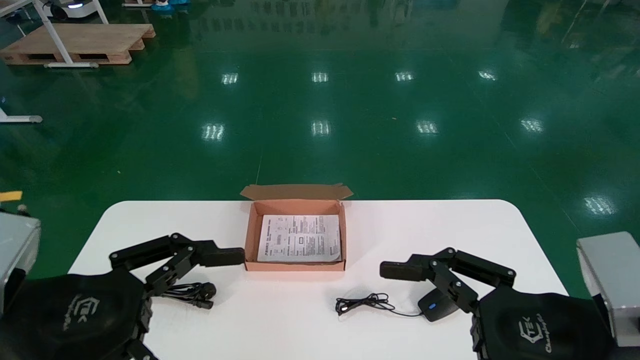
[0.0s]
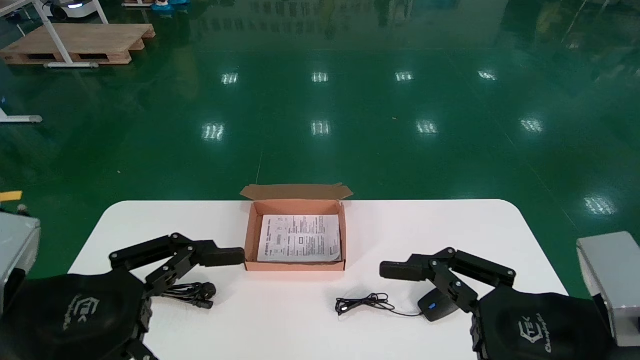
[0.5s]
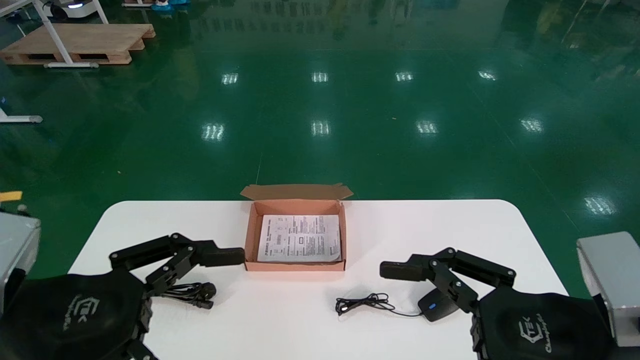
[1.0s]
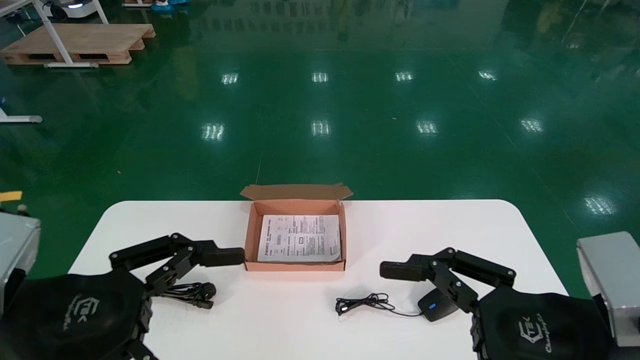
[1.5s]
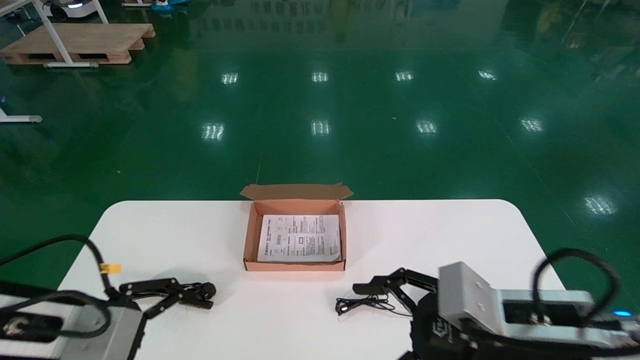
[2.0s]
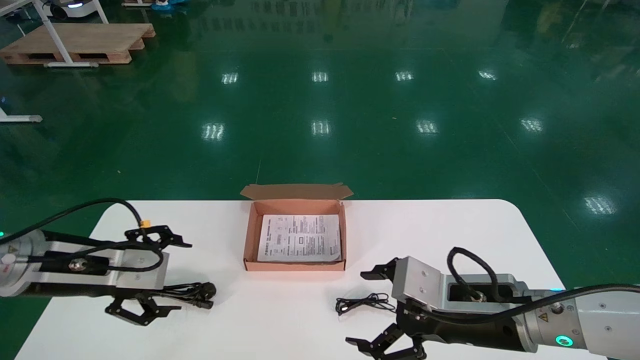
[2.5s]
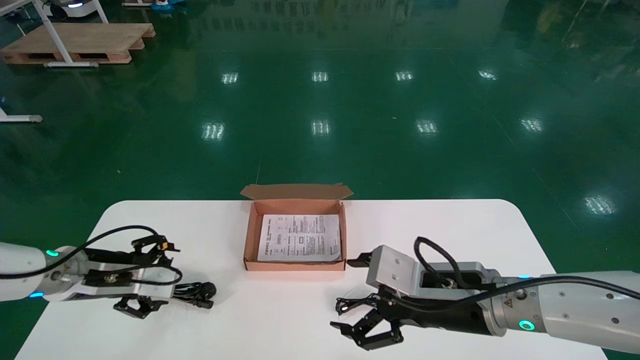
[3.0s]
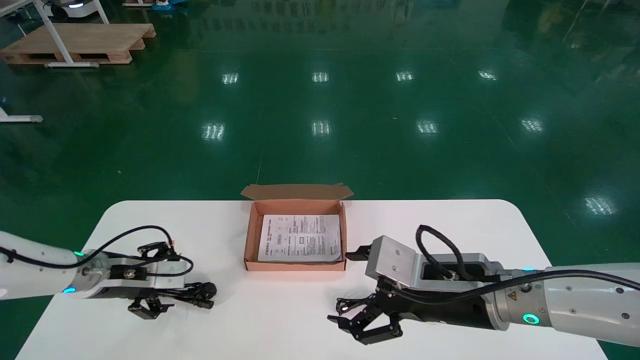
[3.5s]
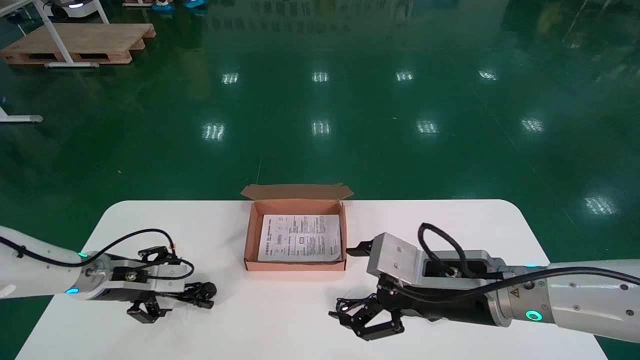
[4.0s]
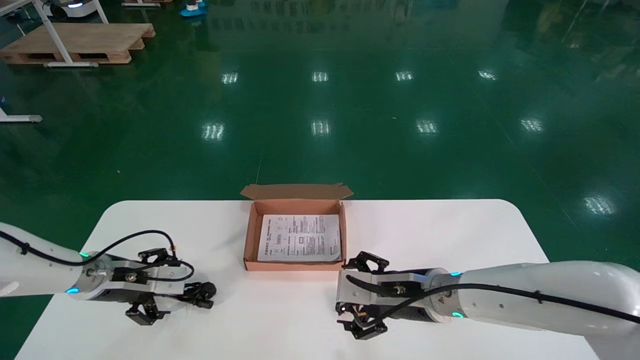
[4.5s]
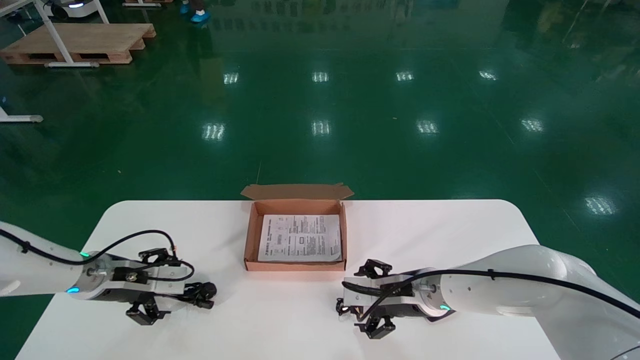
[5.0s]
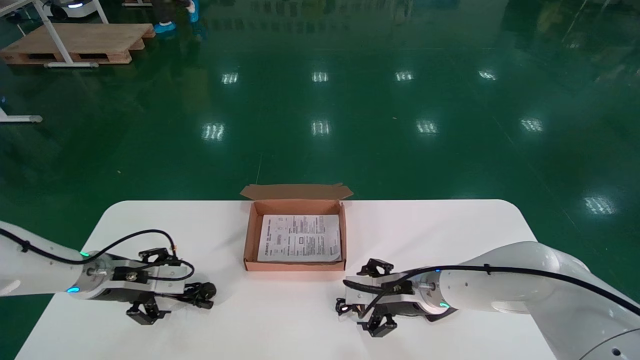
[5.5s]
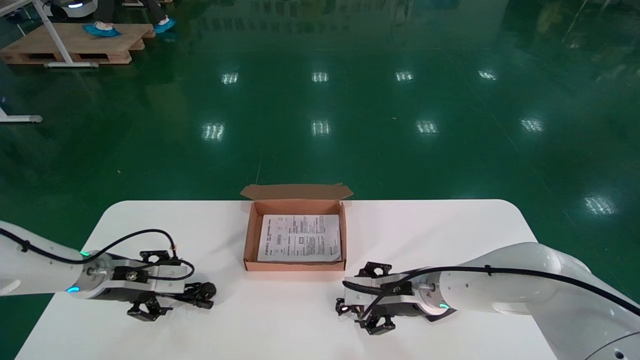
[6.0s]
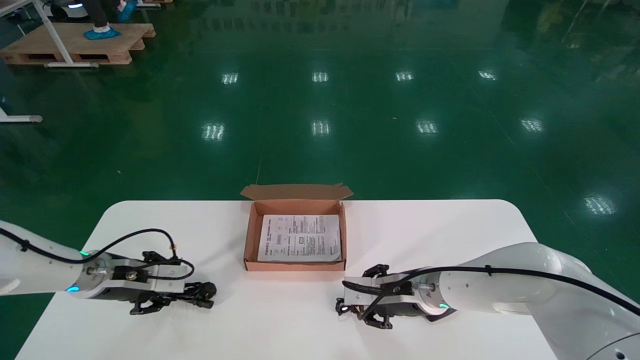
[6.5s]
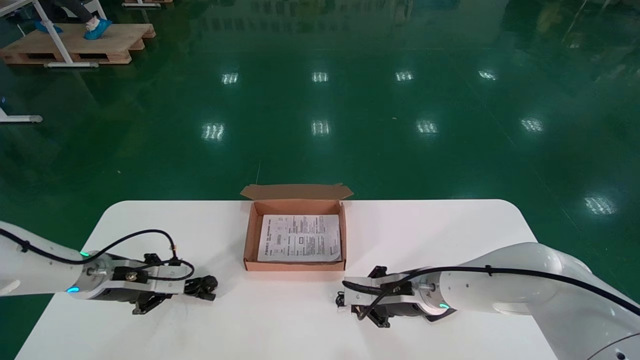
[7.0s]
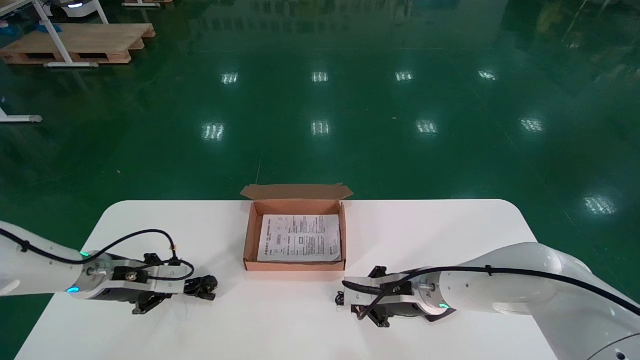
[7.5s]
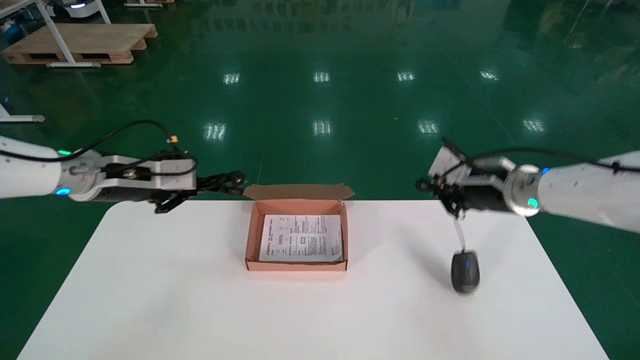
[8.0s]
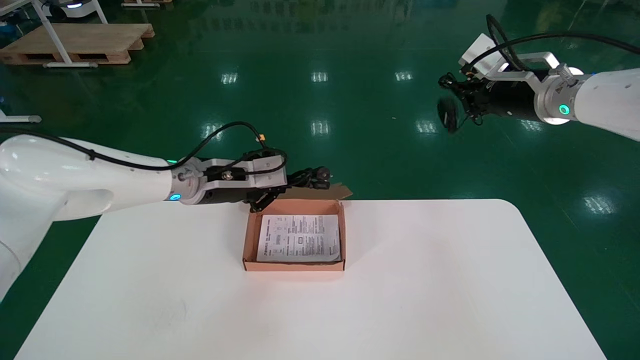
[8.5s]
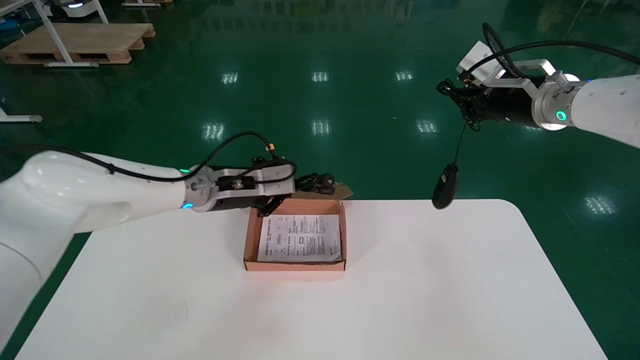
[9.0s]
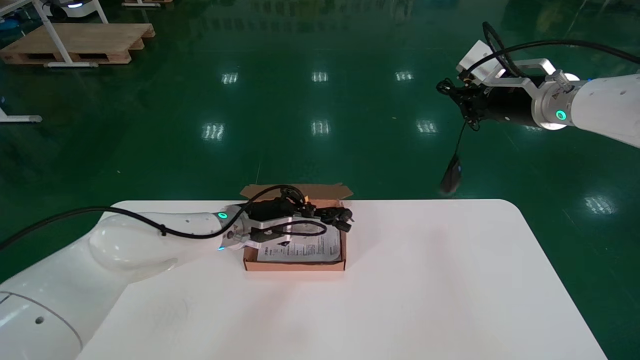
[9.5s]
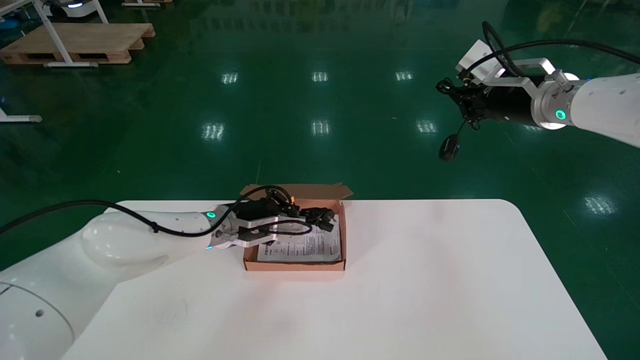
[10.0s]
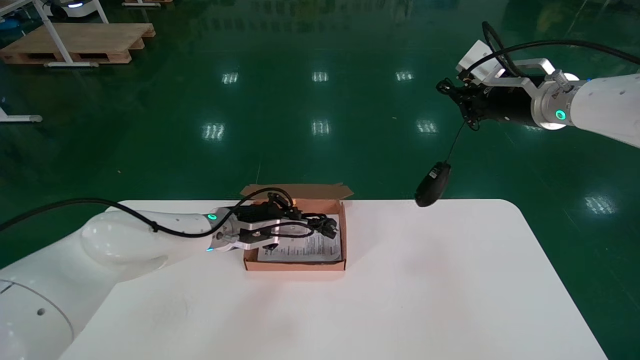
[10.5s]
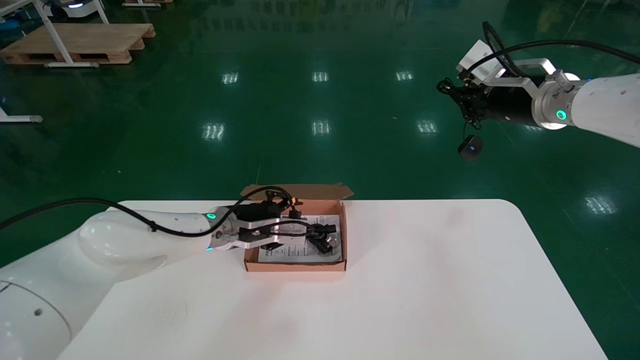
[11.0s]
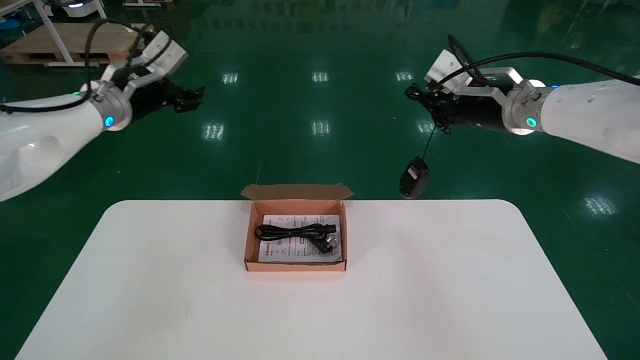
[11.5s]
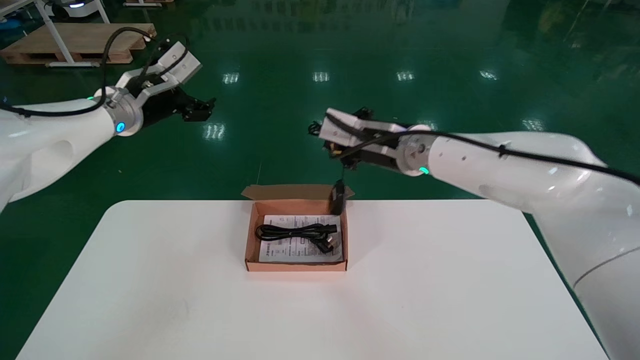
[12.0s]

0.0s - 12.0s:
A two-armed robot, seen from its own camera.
Step, 2.0s - 7.0s: Simultaneously pick up the mouse and power cord from the accessory packaging area.
0.0s - 2.0s: Both grippers move forward, approximately 10 cm.
2.0s - 4.0s: The right gripper travels forward by some 5 cm. The left gripper goes approximately 20 cm forward and downward.
4.0s - 6.0s: The right gripper travels forward and downward by about 15 cm.
6.0s - 8.0s: The right gripper goes about 20 cm upward and to the right, and closes its fingers; the left gripper shifts about 15 cm upward, and closes its fingers.
8.0s - 10.0s: The right gripper shifts about 10 cm upward. Meanwhile the left gripper is displaced to the right and downward by roughly 15 cm.
10.0s - 12.0s: The right gripper shifts some 20 cm to the left. Meanwhile the left gripper is displaced upward and to the left by approximately 25 cm, and opens.

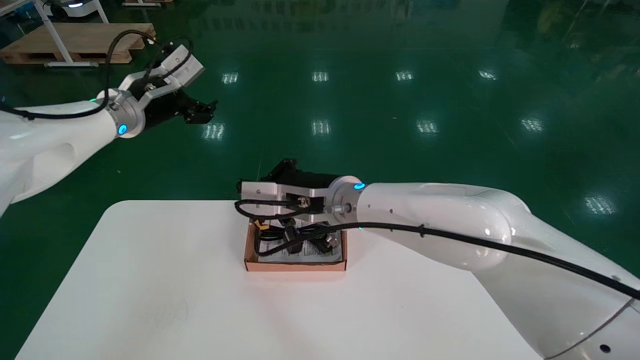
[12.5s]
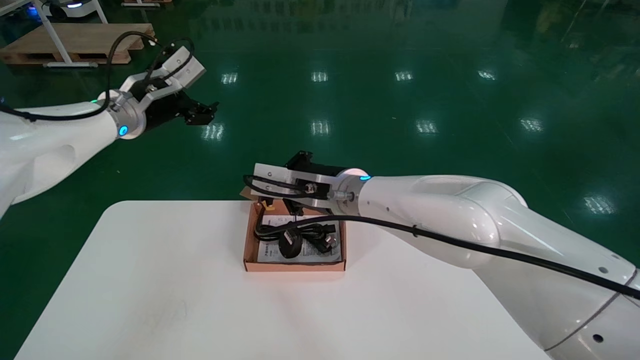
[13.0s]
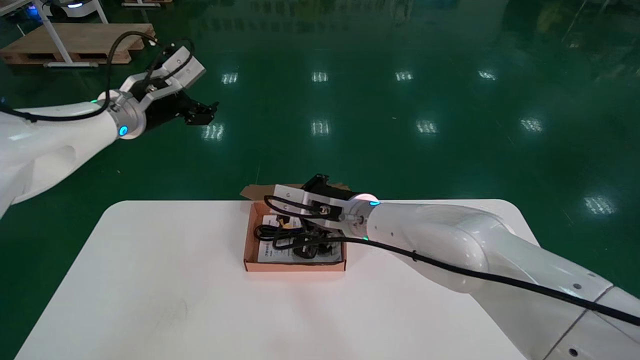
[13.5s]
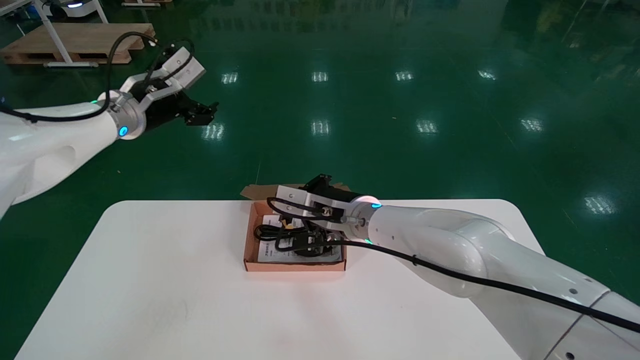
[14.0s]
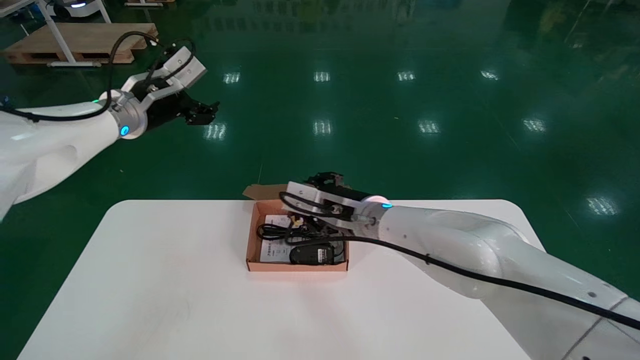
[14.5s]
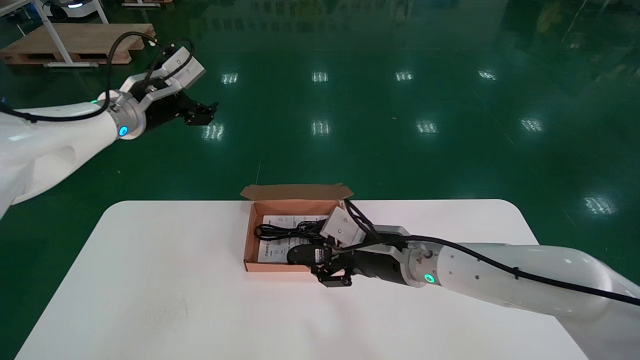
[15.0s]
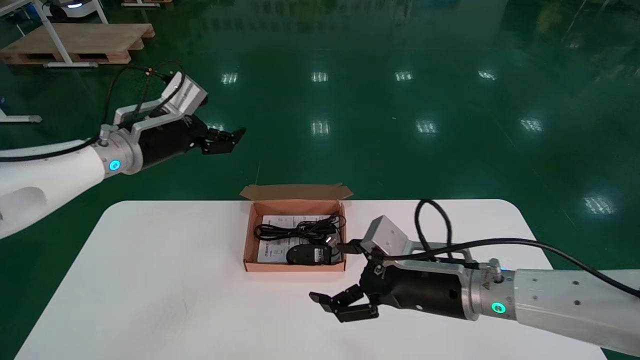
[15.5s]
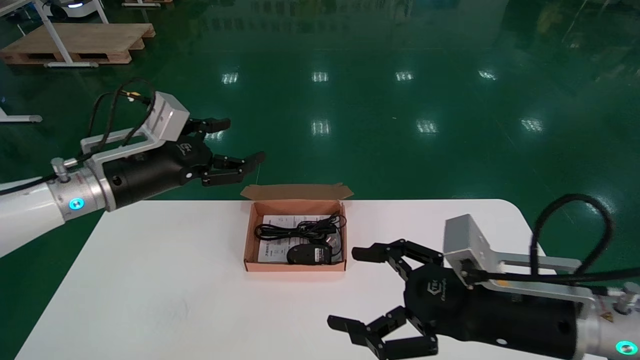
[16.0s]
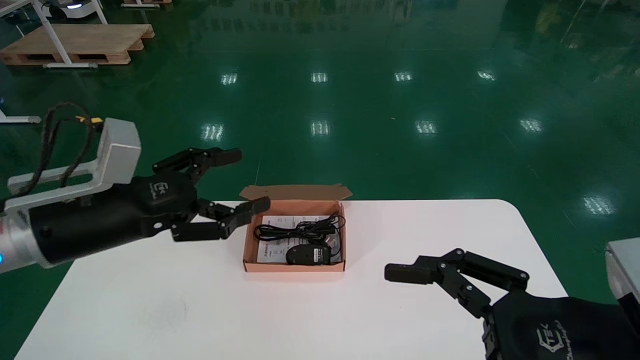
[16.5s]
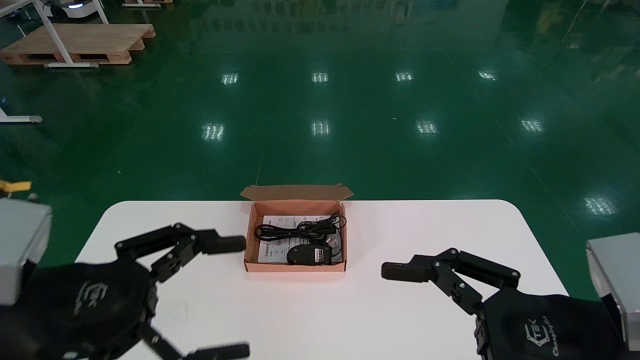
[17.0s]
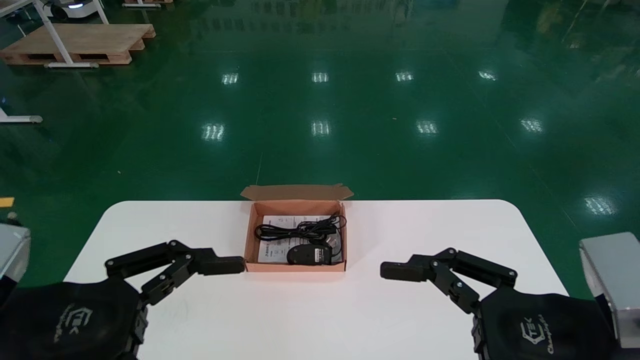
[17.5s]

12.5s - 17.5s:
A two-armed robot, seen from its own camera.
12.5s - 15.0s: The right gripper heads downward and to the right, covering roughly 15 cm, and opens.
15.0s - 17.5s: The left gripper travels backward and downward by about 35 cm. Meanwhile the right gripper travels backward and to the right by about 25 cm.
